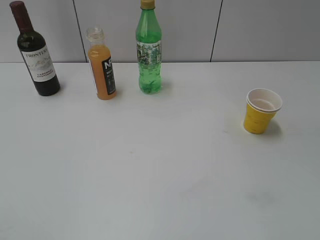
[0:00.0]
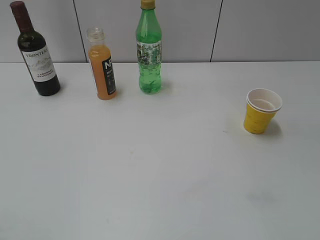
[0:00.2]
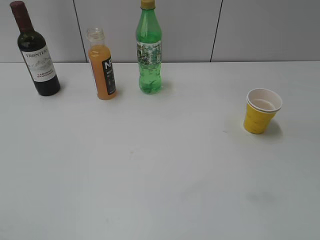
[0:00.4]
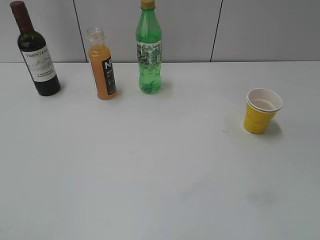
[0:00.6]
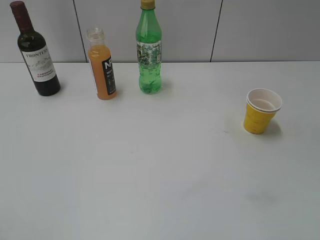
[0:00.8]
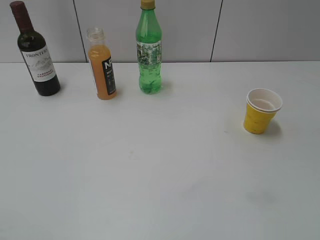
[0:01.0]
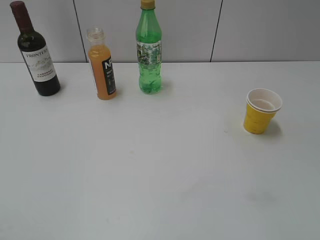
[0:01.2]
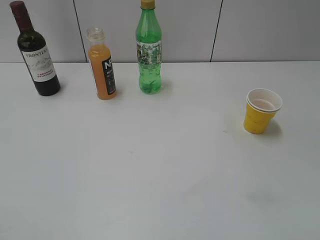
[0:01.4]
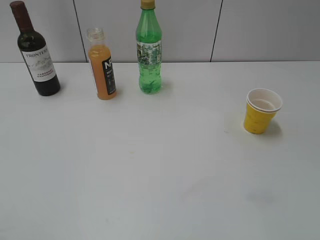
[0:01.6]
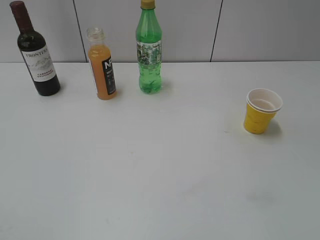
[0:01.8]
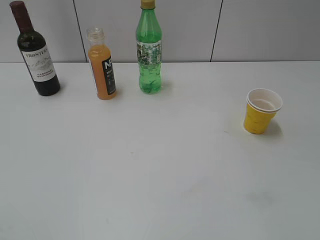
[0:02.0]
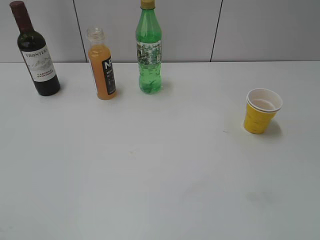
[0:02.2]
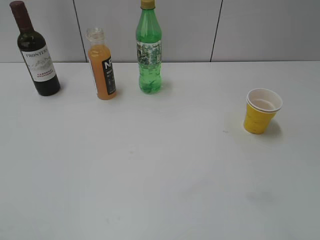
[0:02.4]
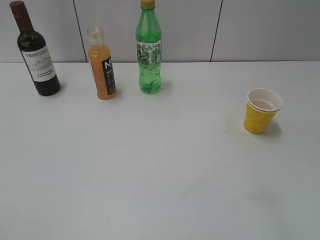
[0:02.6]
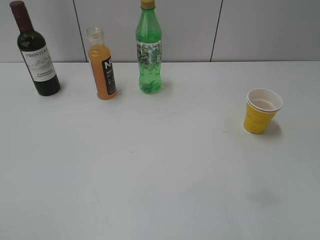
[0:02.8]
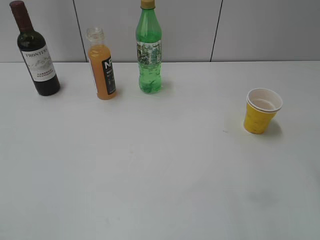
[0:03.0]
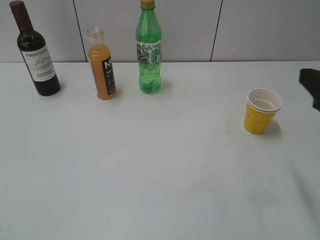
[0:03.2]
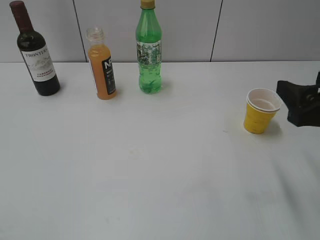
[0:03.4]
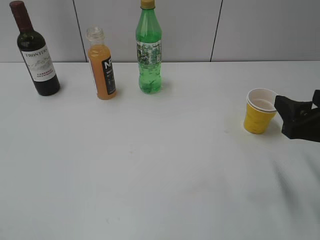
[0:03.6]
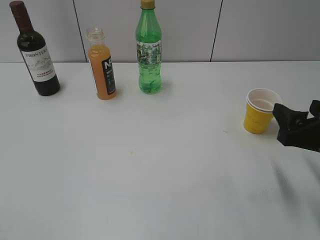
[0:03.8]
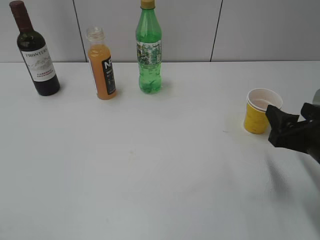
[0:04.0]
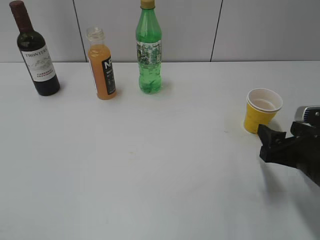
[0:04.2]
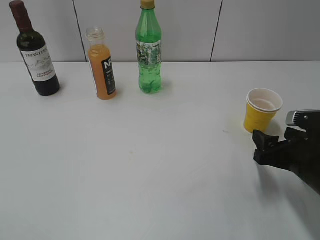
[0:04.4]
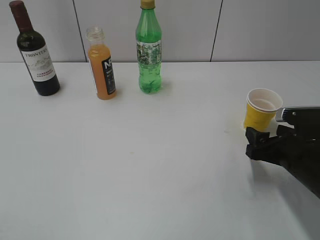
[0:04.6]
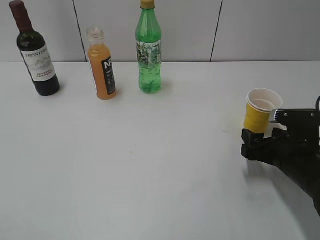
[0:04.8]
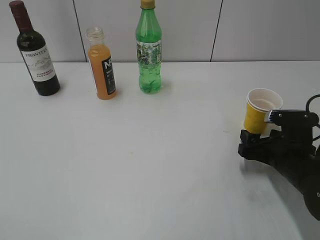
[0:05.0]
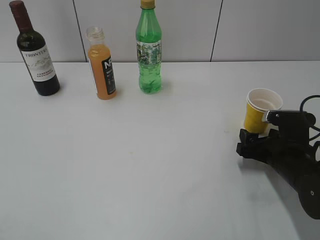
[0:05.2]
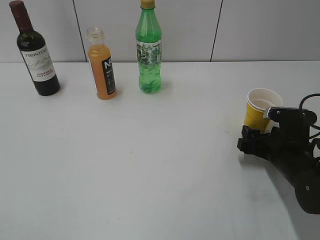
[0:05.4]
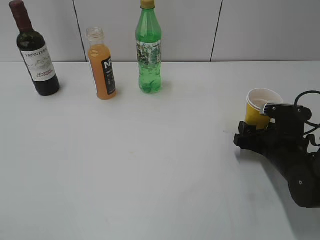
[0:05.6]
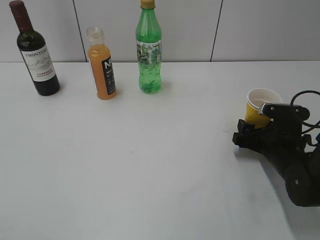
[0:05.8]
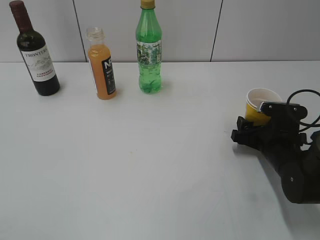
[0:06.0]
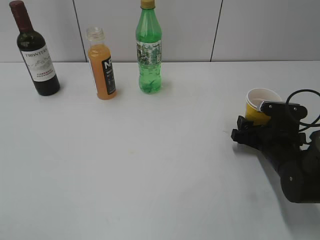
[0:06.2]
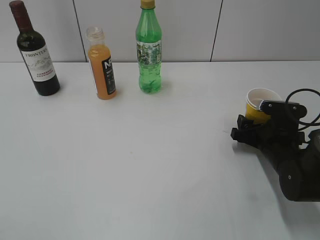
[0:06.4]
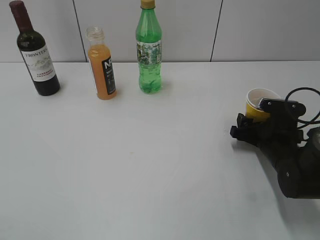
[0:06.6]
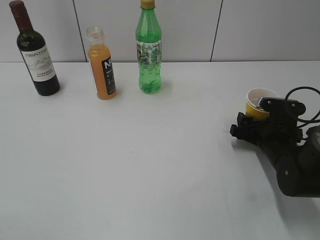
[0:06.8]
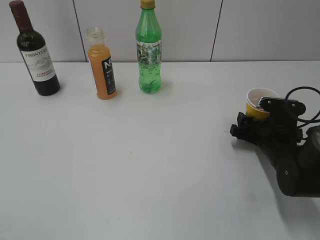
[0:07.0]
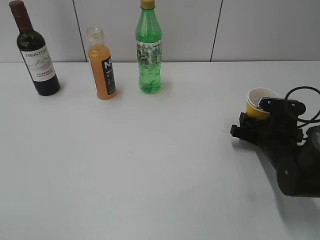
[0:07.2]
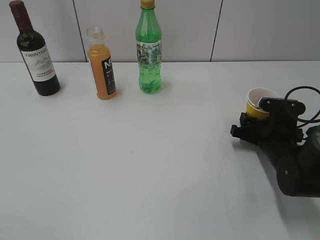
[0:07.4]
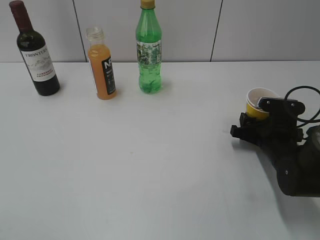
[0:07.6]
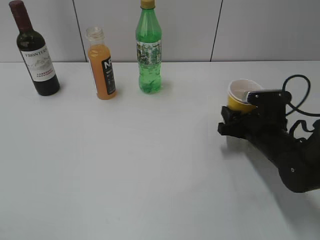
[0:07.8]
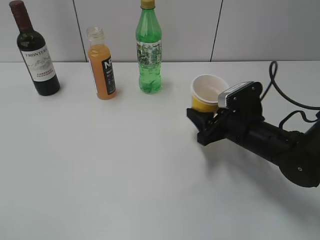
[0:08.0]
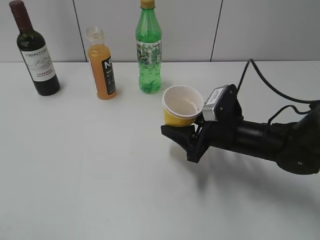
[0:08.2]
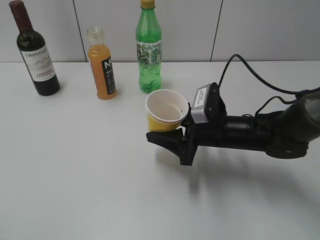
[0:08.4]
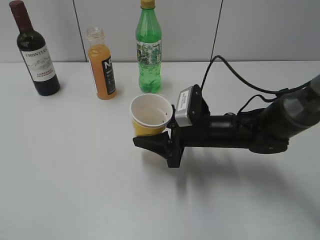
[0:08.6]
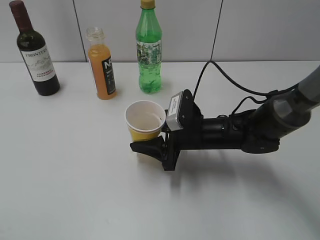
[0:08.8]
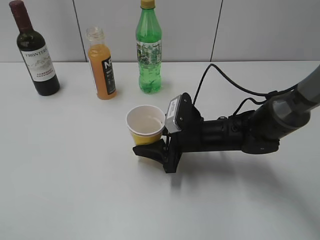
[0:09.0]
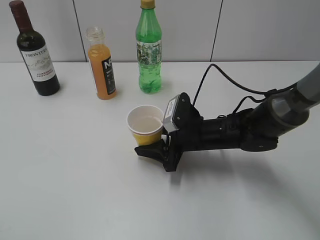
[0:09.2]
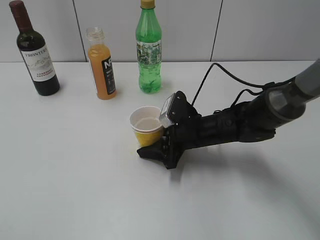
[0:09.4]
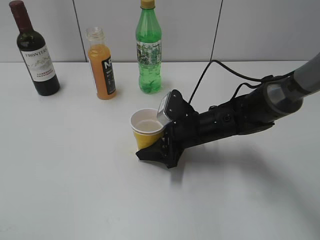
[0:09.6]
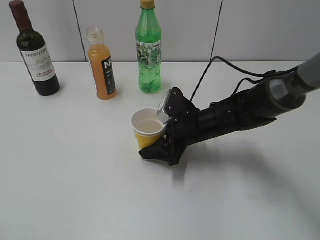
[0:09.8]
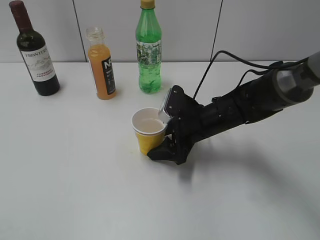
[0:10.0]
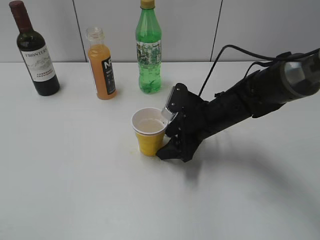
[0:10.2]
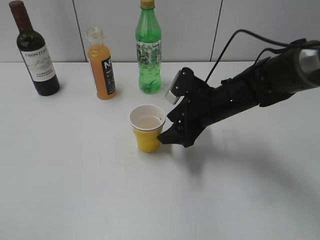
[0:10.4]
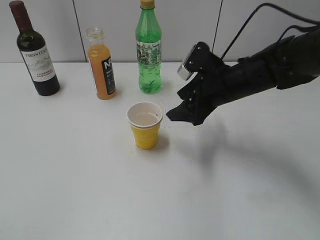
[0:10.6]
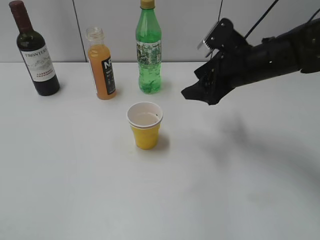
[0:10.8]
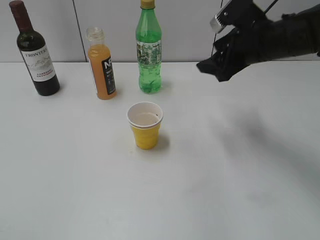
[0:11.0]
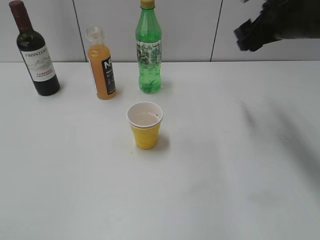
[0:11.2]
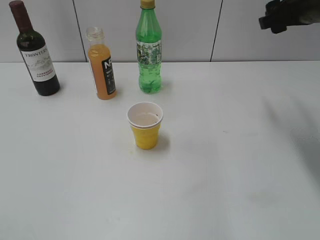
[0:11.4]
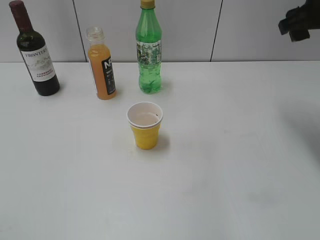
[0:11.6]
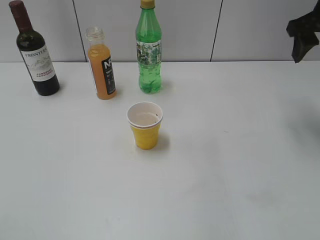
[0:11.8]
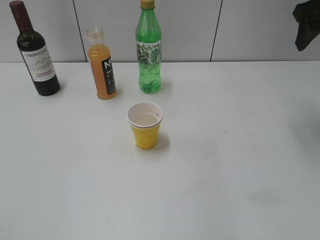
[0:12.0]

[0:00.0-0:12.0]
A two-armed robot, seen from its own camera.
Step, 0:03.2 to 0:07.2: Grasp the yellow paper cup with right gripper.
Step, 0:07.6 to 0:10.4: Place the yellow paper cup on the table with right gripper.
0:03.0 to 0:04.4: The right gripper travels downward by some 20 cm.
0:04.4 to 0:06.0: The right gripper is displaced forward and downward by about 10 cm.
0:06.0 to 0:07.6: The right gripper closes its fingers.
0:07.6 to 0:09.0: The right gripper heads to the left, covering about 15 cm.
0:09.0 to 0:10.4: The right gripper moves some 5 cm, and opens up.
0:10.4 to 0:12.0: The right gripper shifts some 25 cm upward and to the right.

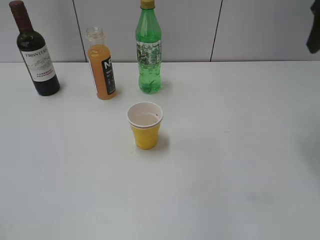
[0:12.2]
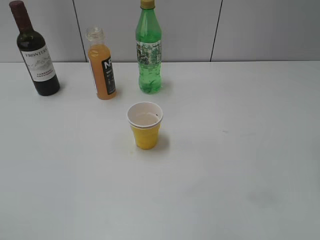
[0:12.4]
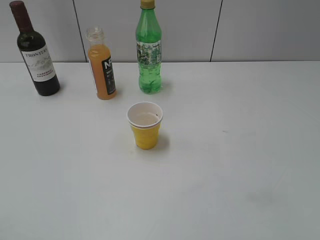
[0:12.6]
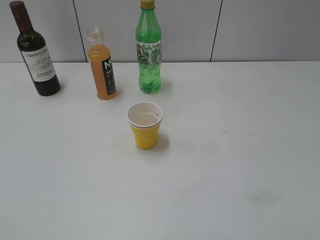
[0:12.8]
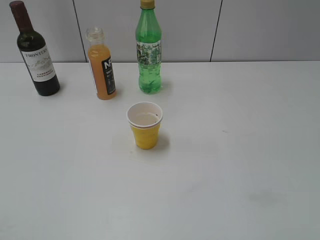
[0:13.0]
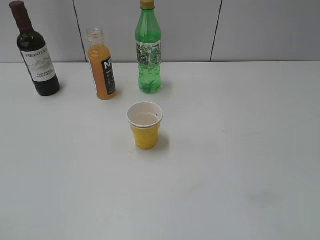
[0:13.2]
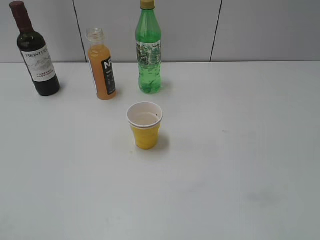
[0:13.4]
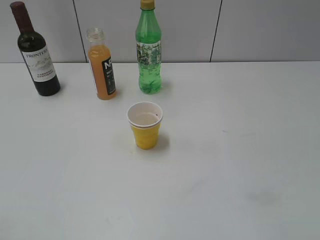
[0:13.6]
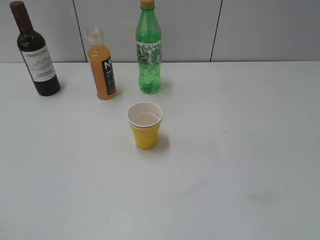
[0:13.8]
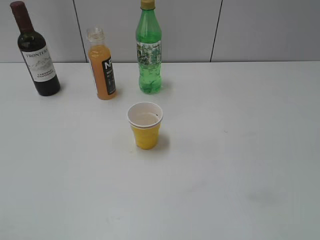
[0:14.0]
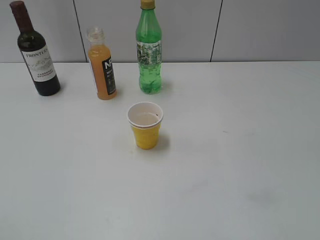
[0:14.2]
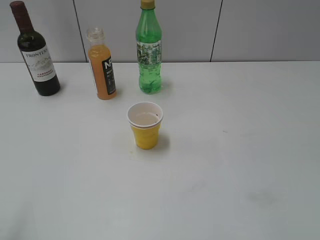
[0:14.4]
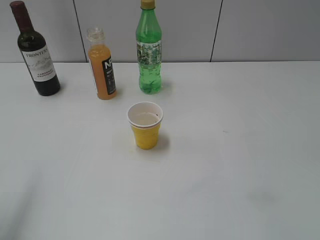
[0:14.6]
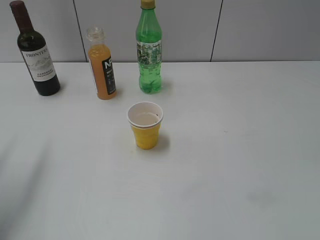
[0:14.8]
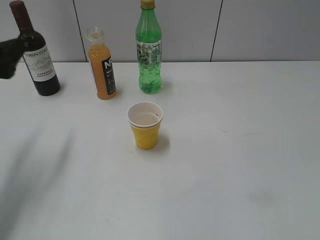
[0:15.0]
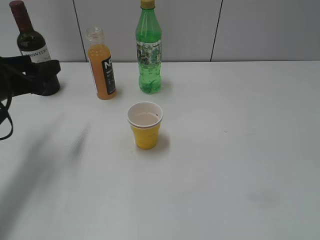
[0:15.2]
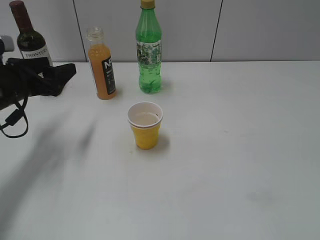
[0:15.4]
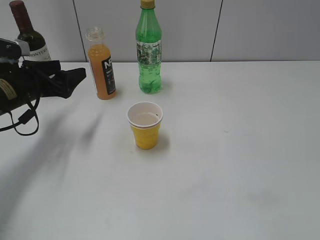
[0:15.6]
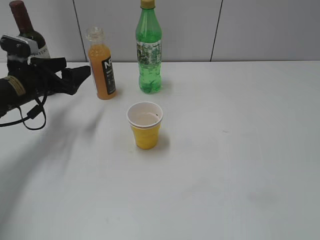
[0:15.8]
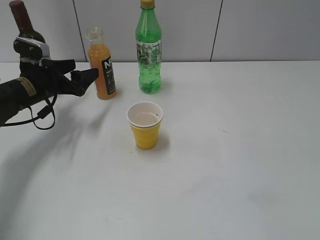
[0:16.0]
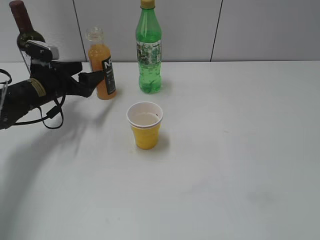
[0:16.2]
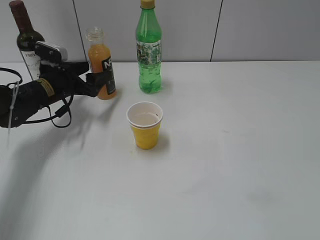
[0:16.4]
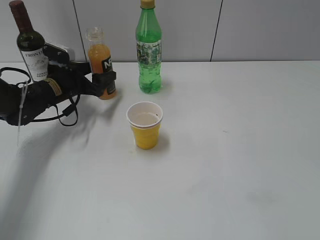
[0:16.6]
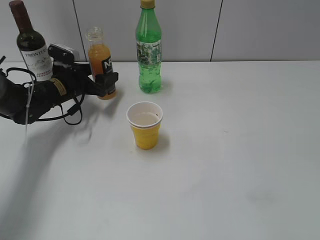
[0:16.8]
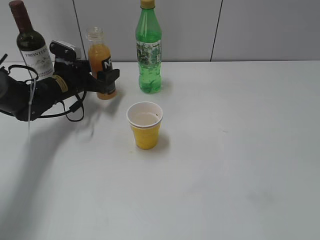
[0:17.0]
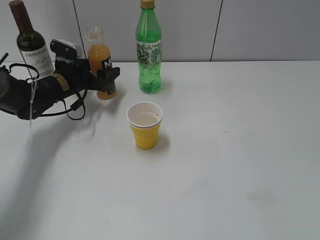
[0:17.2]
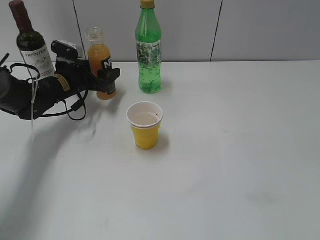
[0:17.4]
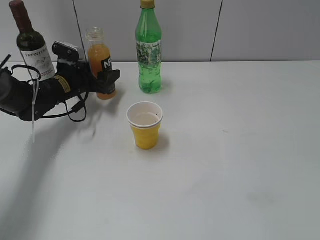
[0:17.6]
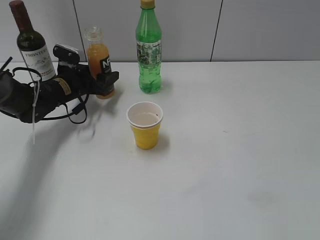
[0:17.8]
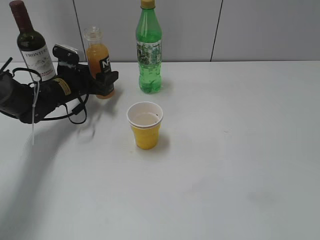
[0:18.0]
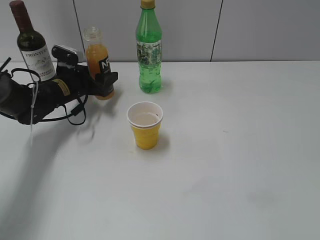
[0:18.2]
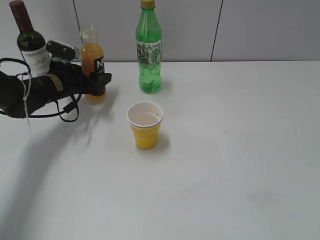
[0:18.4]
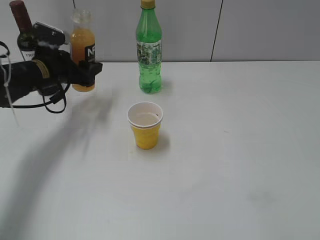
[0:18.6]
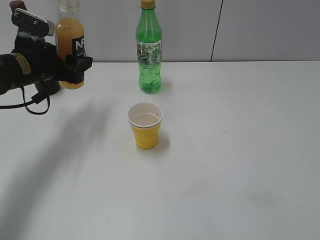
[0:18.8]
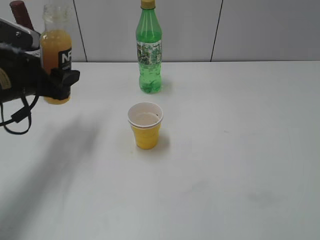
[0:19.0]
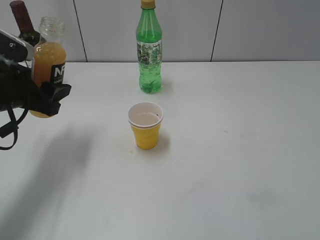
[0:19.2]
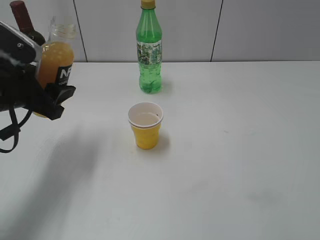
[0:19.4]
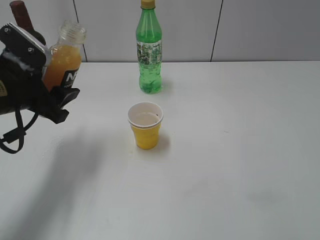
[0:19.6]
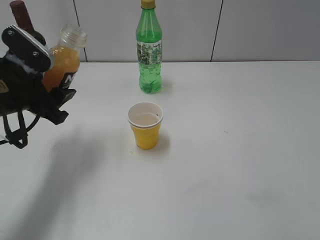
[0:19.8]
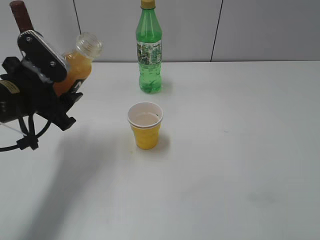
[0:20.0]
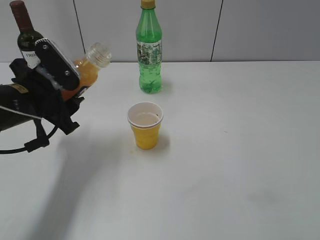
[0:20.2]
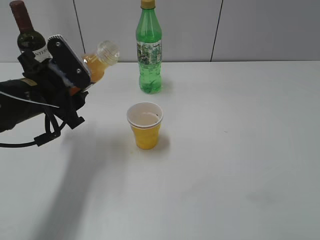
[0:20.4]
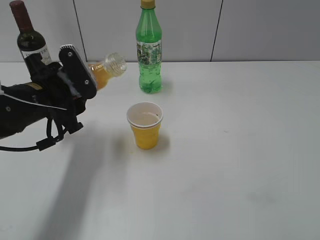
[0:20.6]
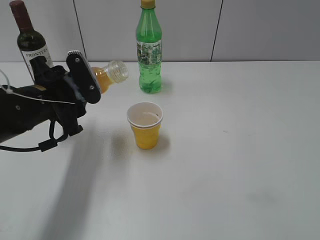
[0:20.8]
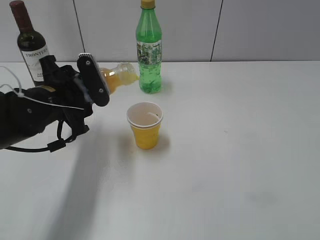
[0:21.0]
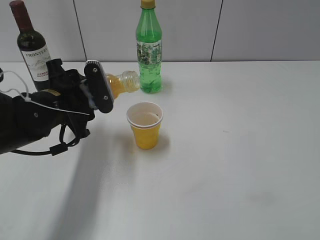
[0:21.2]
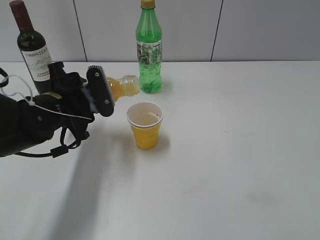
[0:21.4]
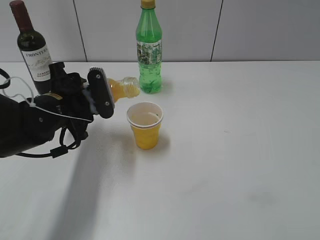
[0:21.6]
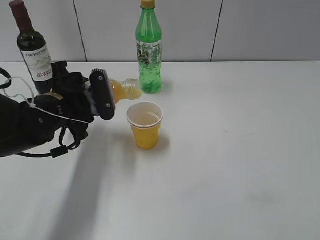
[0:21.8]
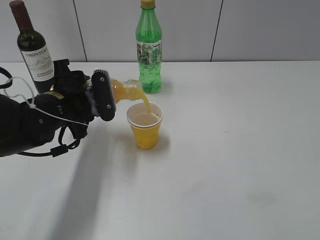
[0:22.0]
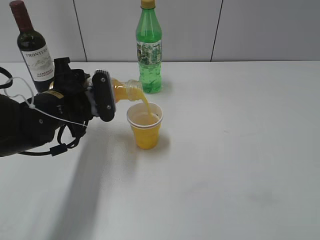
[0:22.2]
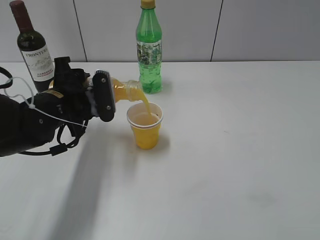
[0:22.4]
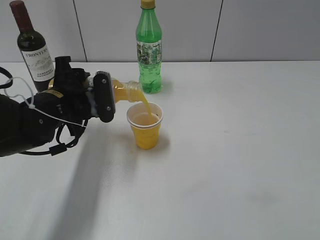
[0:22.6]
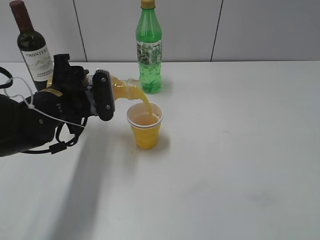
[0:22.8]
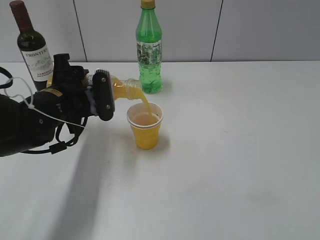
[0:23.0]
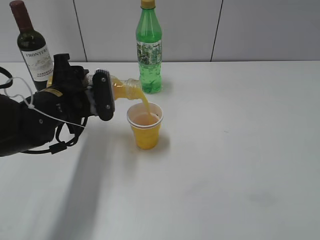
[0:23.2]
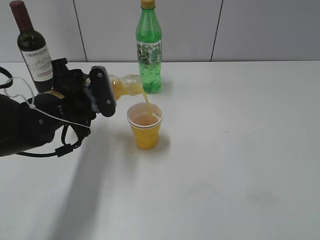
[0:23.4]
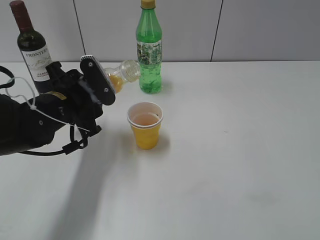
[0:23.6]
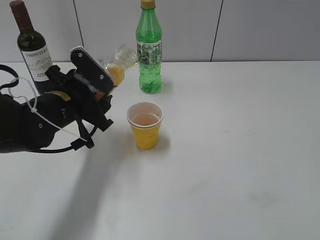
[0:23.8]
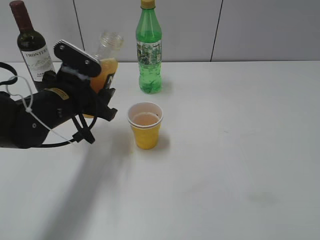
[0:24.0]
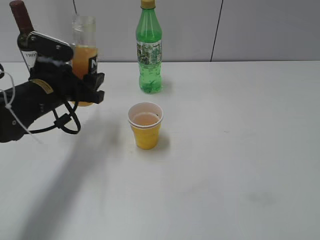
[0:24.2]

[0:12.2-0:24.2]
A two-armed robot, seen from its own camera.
Step, 0:12.2 to 0:18.0: Grasp the bottle with orange juice with left gripper.
Step, 0:18.4 to 0:23.6: Pour the orange juice from bottle to cup with left gripper.
0:12.2 to 0:13.8: The right gripper shifts about 35 cm backward.
0:13.8 to 0:15.2: The left gripper moves forward, roughly 30 cm.
0:15.2 to 0:16.6: The left gripper heads forward, downward and to the right, covering about 20 cm.
0:16.6 to 0:18.2: The left gripper closes its fingers.
0:18.2 to 0:19.8: The left gripper travels backward and upward by some 20 cm.
0:19.8 to 0:21.2: The left gripper goes roughly 5 cm to the right.
0:21.2 to 0:22.6: The grippers make only small movements.
